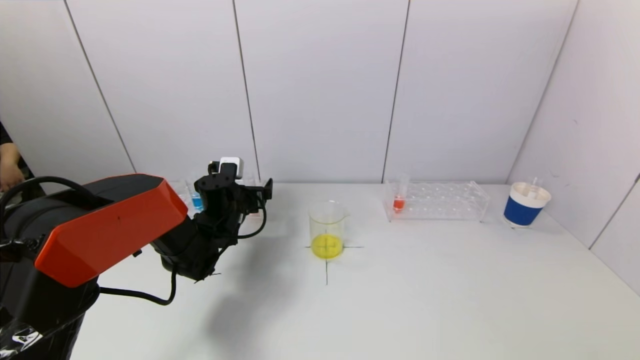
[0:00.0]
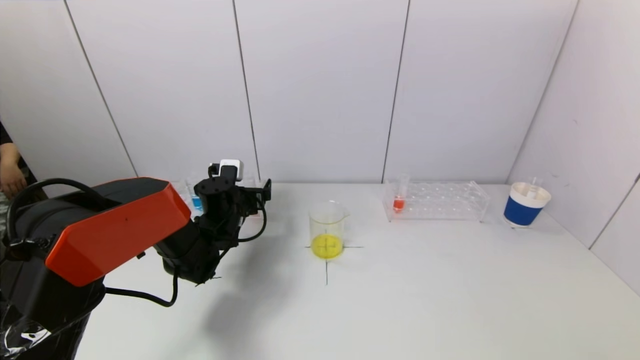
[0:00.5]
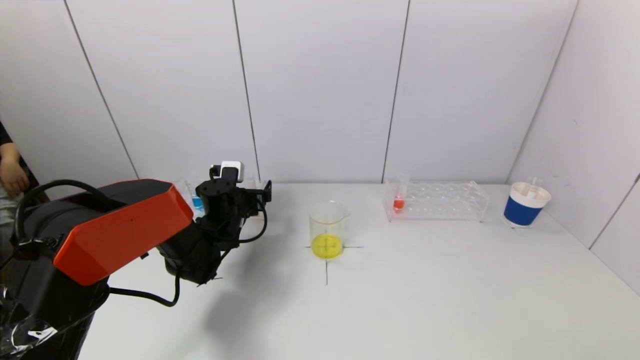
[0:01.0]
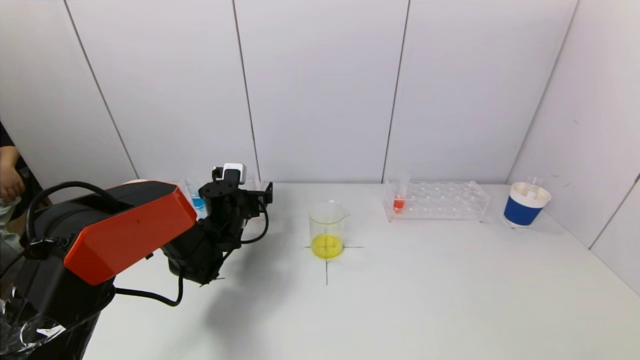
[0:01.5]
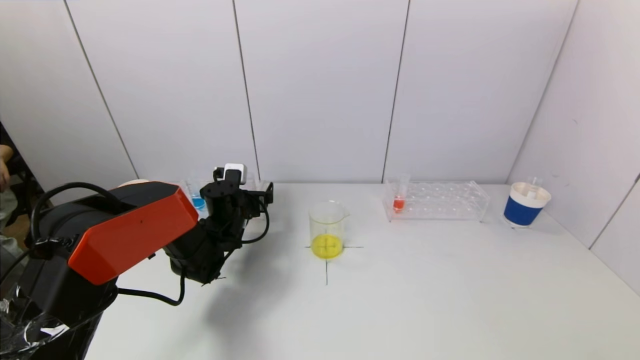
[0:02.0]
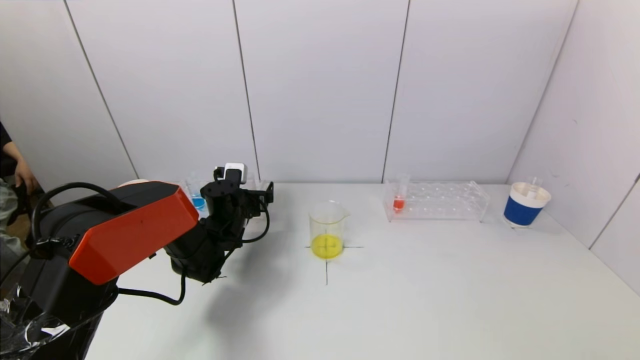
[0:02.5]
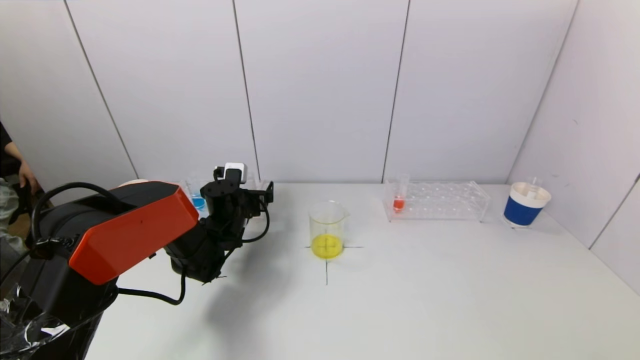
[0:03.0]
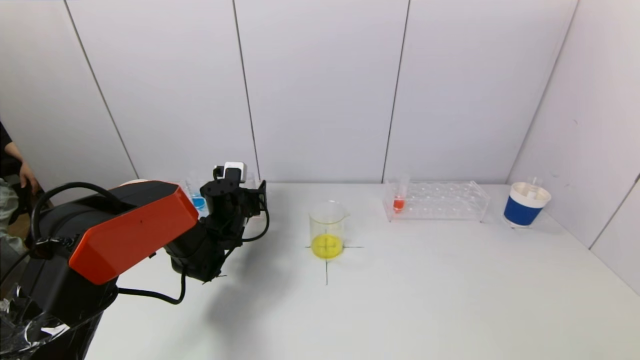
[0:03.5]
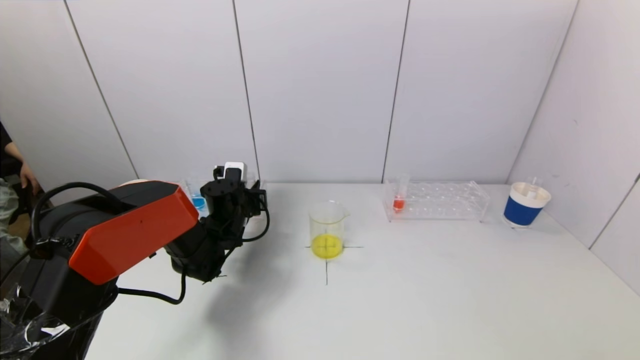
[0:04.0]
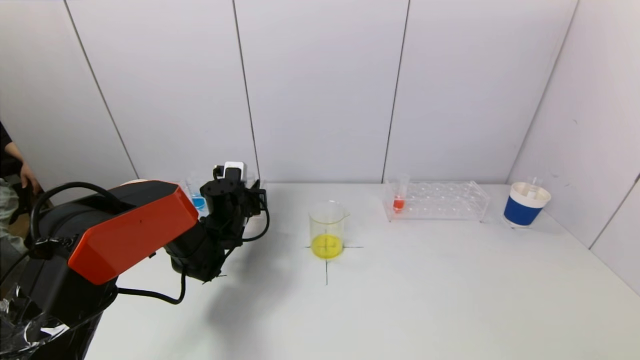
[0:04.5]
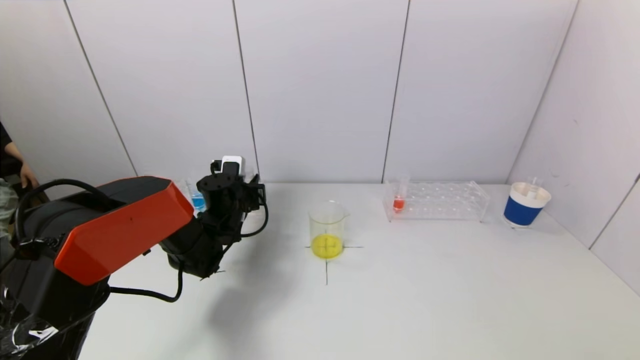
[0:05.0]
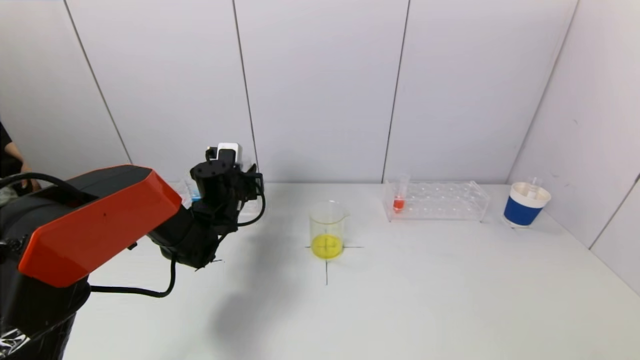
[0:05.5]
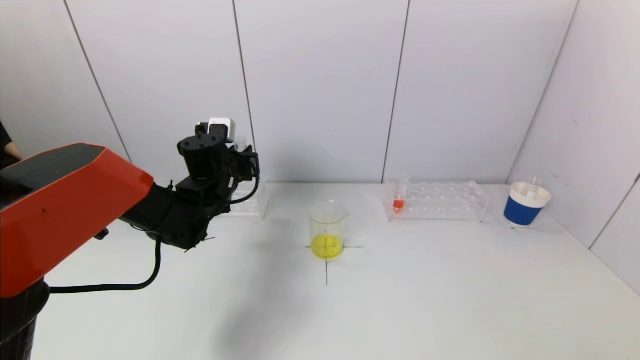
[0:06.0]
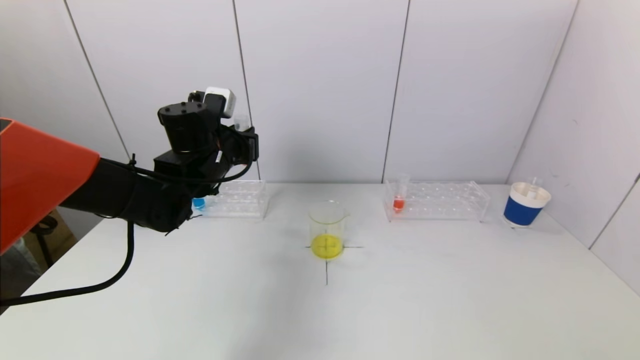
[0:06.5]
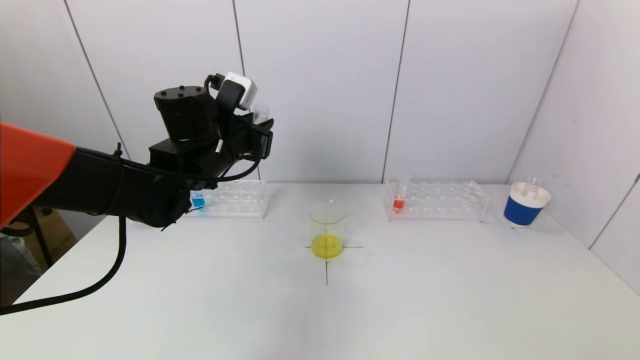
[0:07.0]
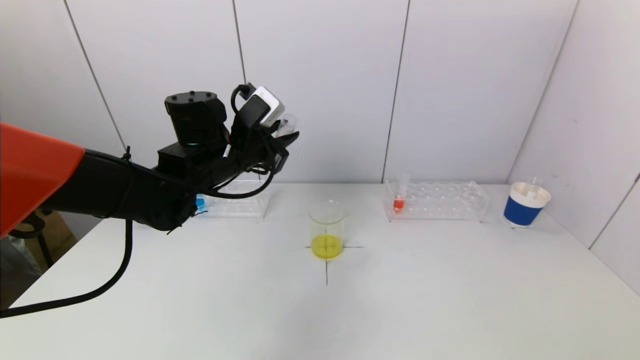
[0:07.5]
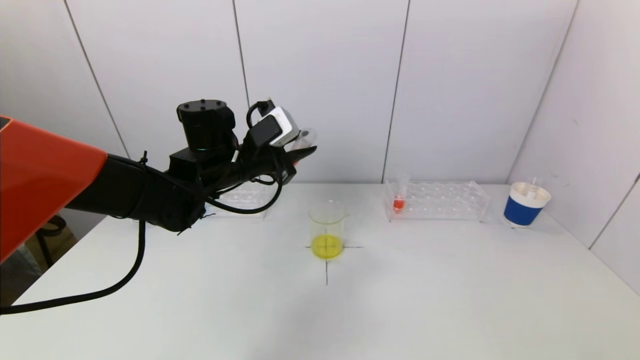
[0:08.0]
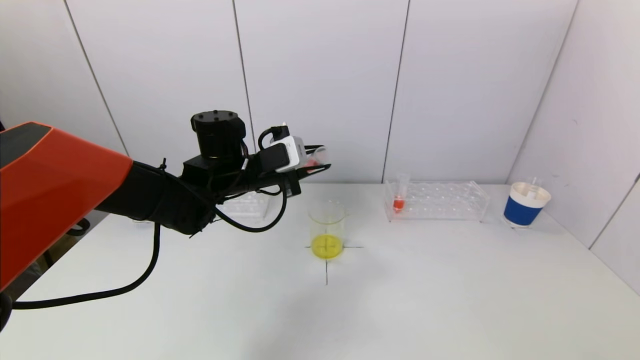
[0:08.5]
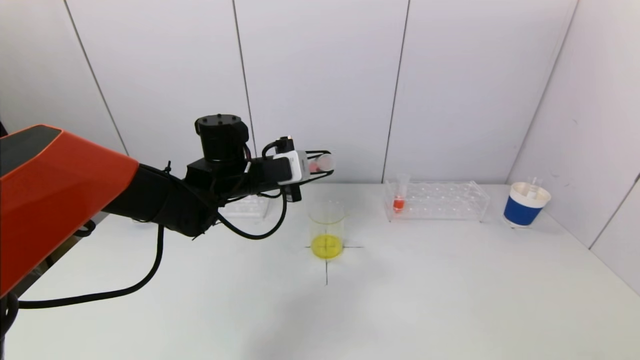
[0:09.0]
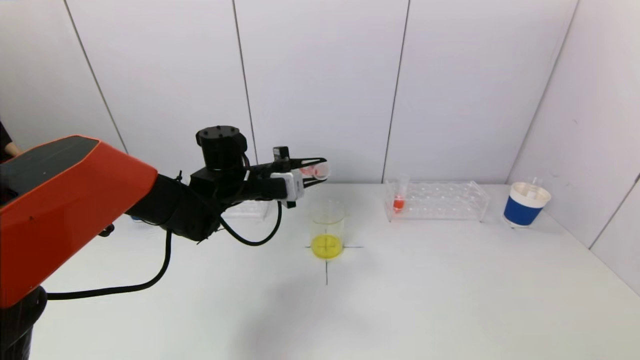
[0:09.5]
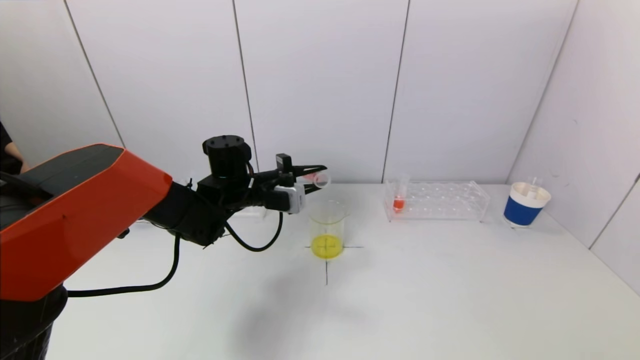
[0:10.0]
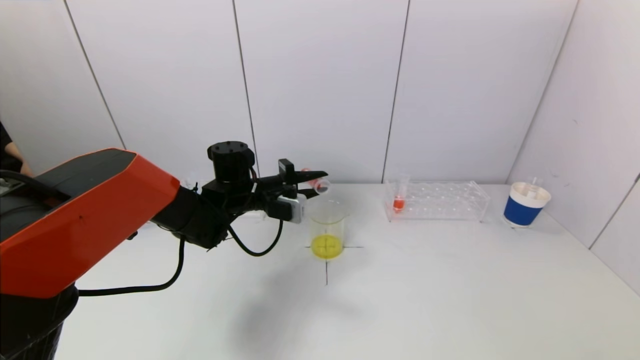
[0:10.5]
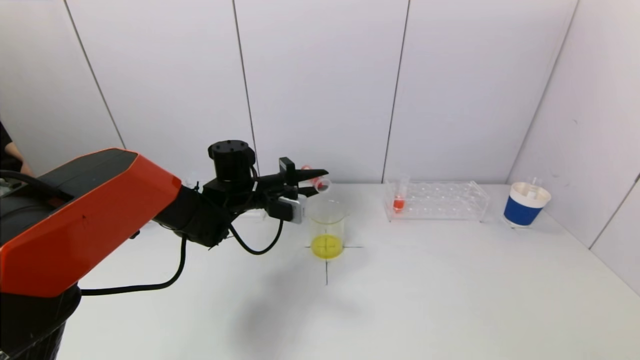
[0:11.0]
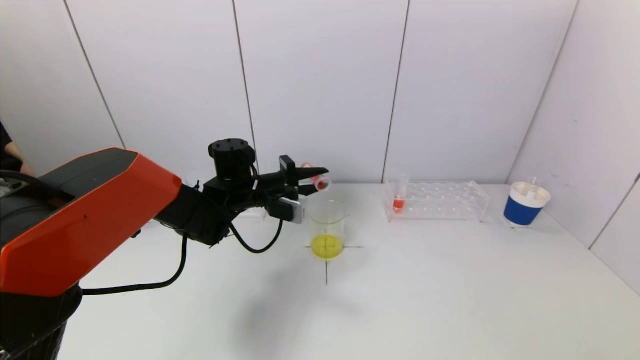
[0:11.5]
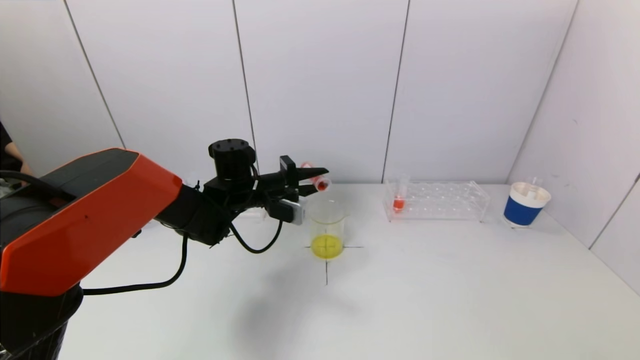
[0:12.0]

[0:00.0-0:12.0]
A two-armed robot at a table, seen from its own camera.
Task of the whole recording: pick up a test tube with pigment on left test tube rack and a test tube with pigment on right test tube rack by grippers and pour them into the beaker.
Step, 0:00.0 to 0:04.0: Grasp the red reagent with the left gripper.
0:00.0 to 0:02.0: The grippers stay close to where they were, moving slightly.
0:02.0 to 0:04.0: The left gripper closes up.
0:04.0 to 0:06.0: The left gripper is displaced upward by some 10 cm.
0:06.0 to 0:08.0: The left gripper shifts roughly 5 cm upward.
0:08.0 to 0:10.0: The left gripper travels downward by some 5 cm.
0:10.0 to 0:12.0: There are only small adjustments of the grippers.

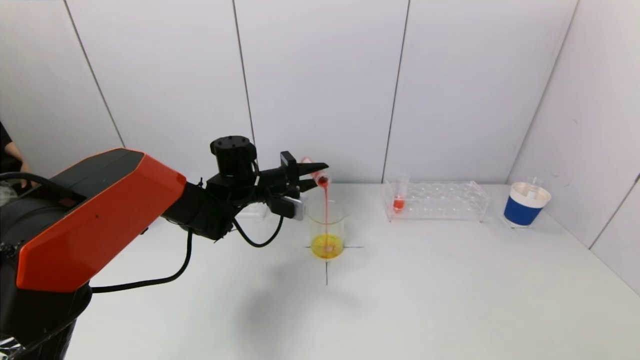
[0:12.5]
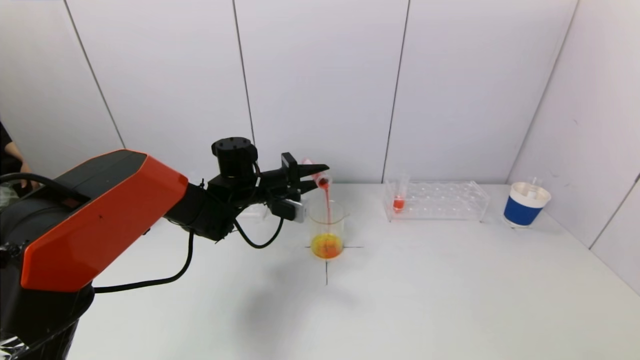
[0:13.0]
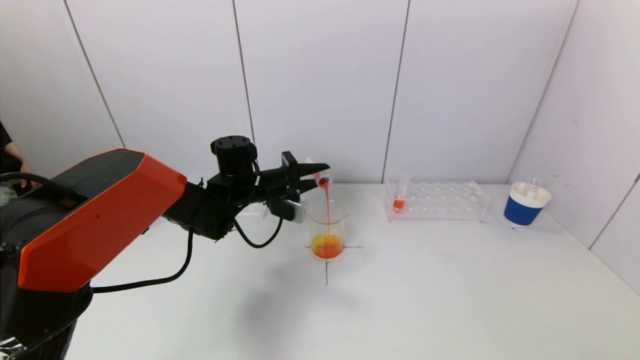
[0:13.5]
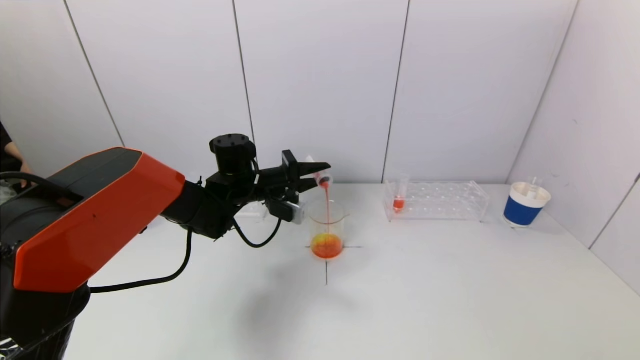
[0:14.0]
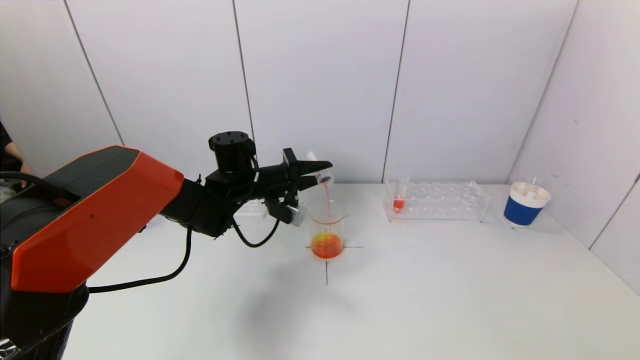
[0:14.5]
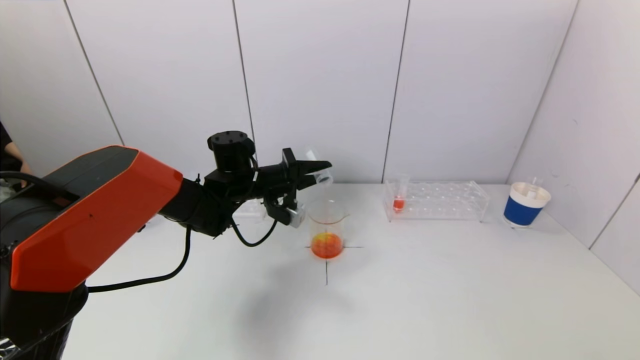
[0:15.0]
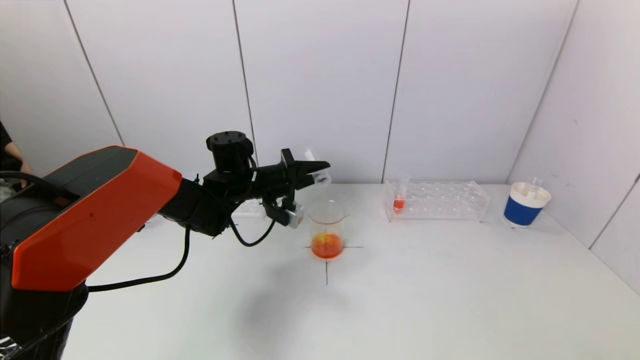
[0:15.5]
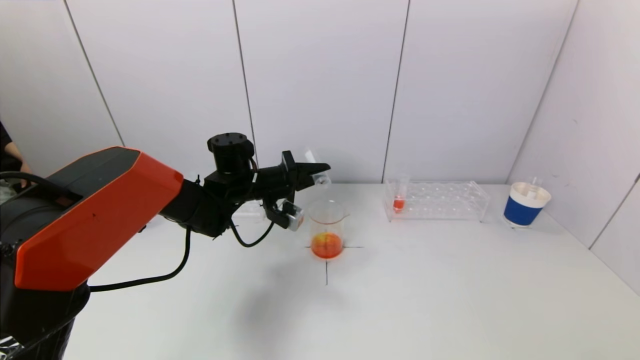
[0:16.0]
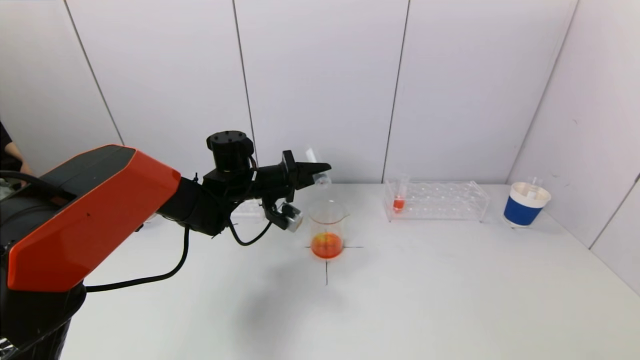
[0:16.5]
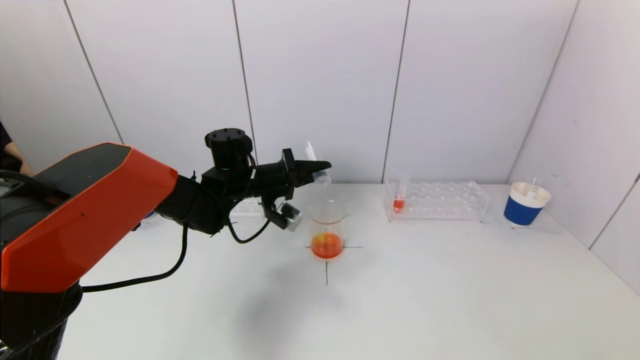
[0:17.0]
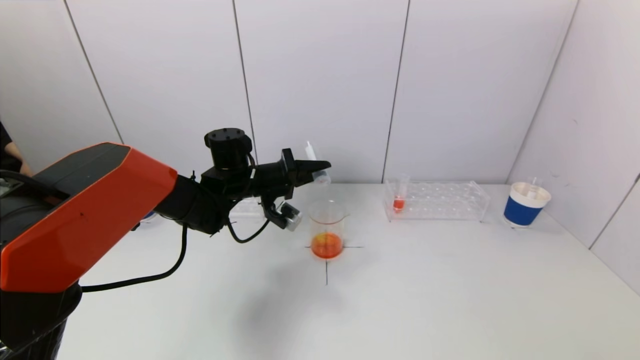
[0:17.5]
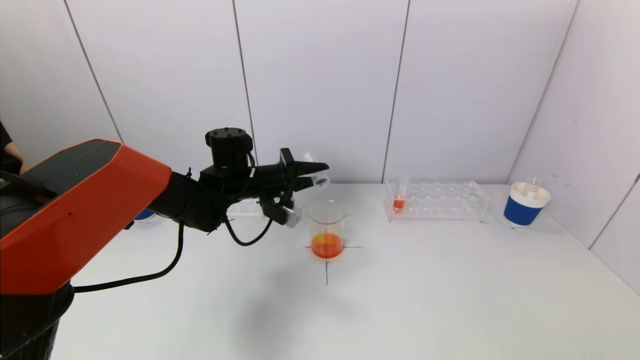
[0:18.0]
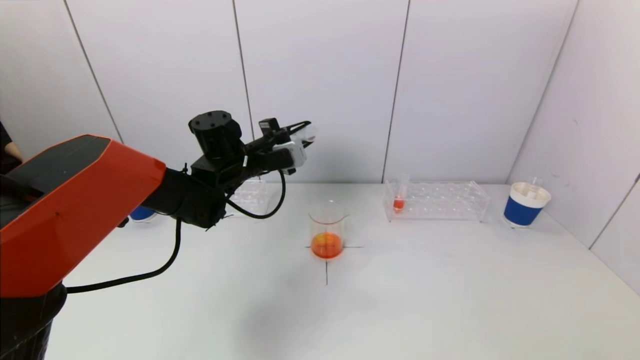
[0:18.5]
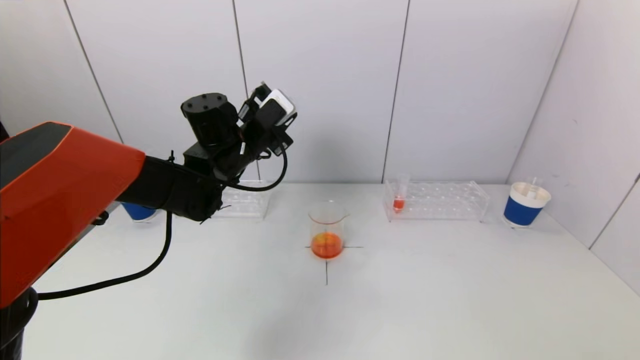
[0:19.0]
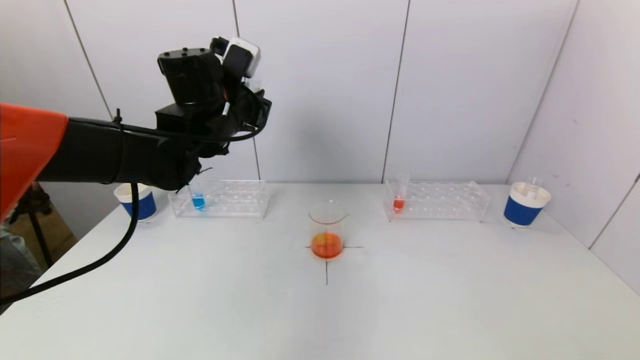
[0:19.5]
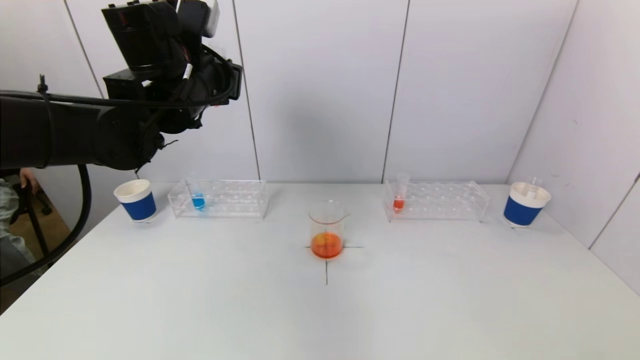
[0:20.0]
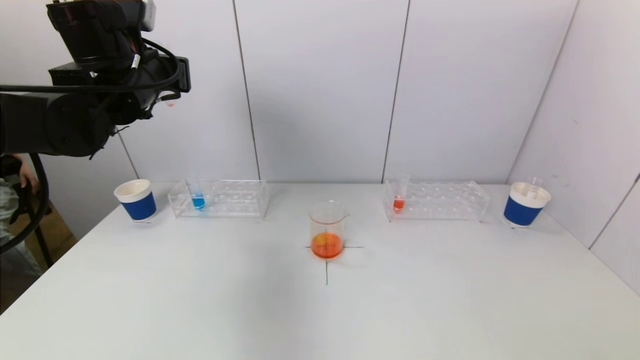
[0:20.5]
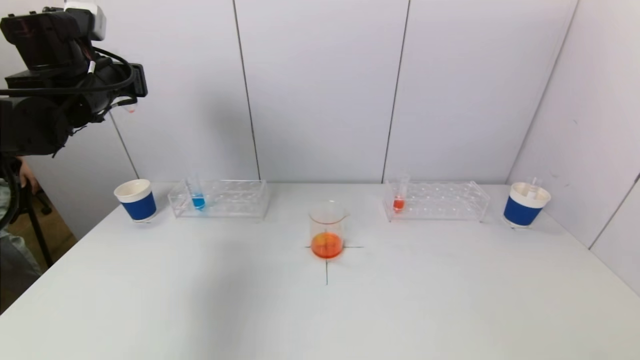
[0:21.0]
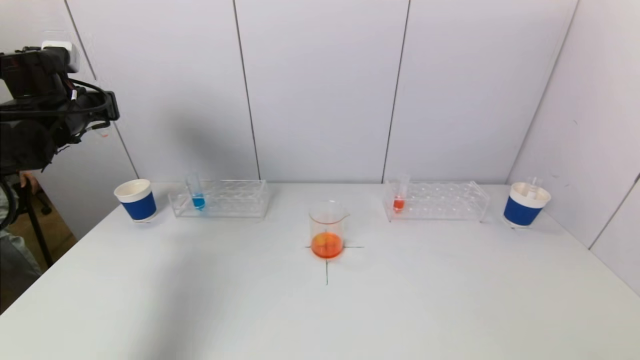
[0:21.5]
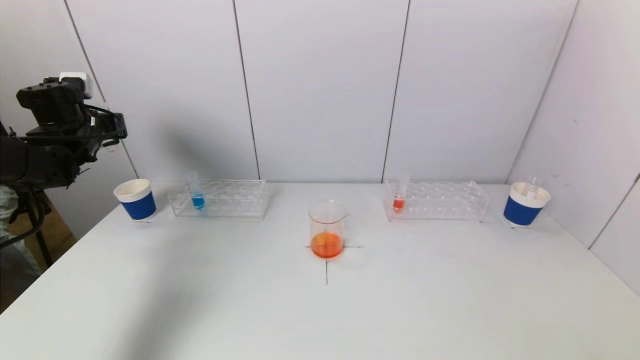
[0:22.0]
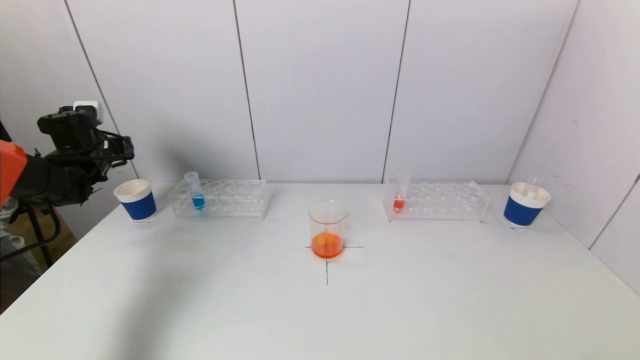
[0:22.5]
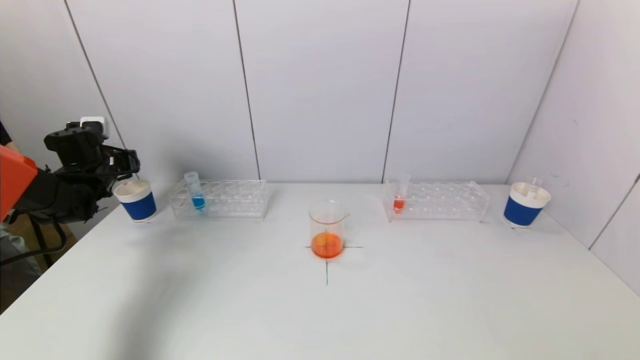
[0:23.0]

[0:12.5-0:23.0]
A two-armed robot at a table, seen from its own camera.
Task of the whole recording: pick up a test tube with pigment on left test tube rack and a test tube with pigment on right test tube rack by grippers and pour them into the beaker.
Step, 0:12.5 to 0:15.0: Pour the red reagent into the graduated cylinder with the left gripper.
0:12.5 to 0:14.5: There are only small adjustments of the grippers.
0:14.5 to 0:16.5: There are only small adjustments of the grippers.
0:16.5 to 0:19.0: The left gripper moves upward, about 10 cm.
0:19.0 to 0:21.0: The left gripper is displaced to the left and upward by some 20 cm.
0:21.0 to 0:23.0: The left gripper shifts about 20 cm downward and to the left.
